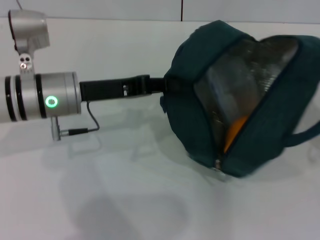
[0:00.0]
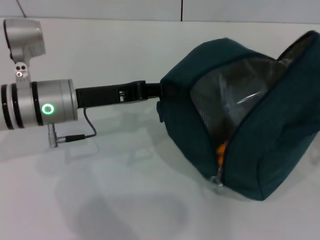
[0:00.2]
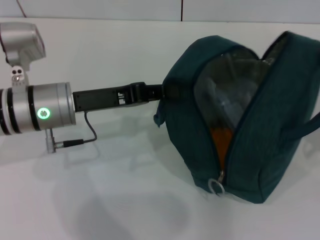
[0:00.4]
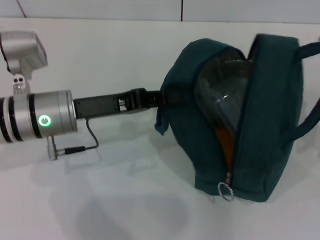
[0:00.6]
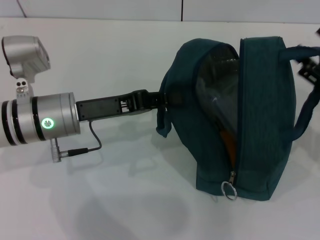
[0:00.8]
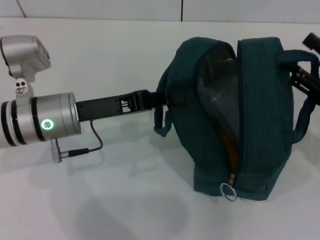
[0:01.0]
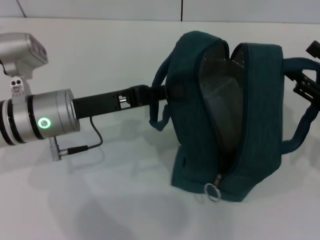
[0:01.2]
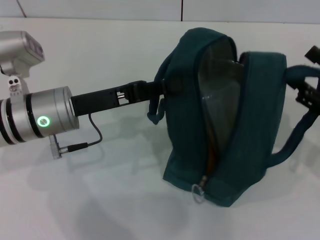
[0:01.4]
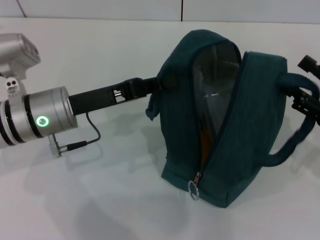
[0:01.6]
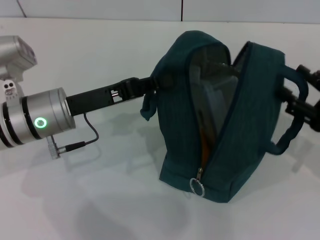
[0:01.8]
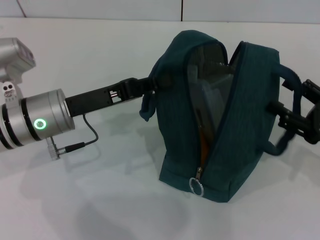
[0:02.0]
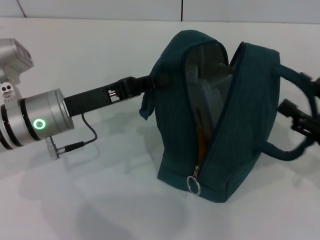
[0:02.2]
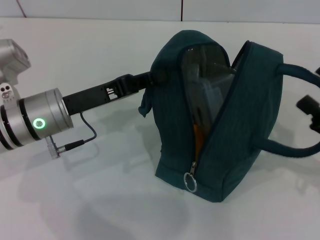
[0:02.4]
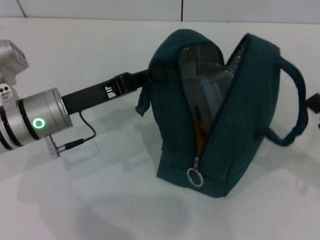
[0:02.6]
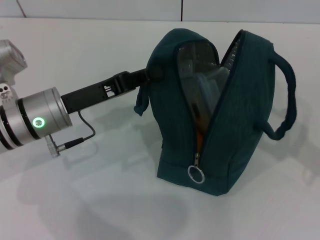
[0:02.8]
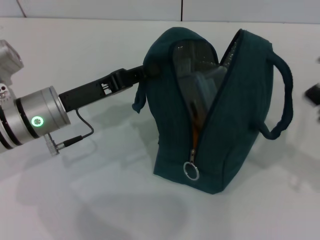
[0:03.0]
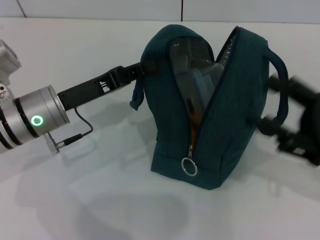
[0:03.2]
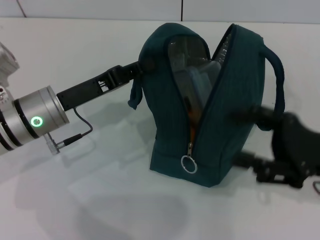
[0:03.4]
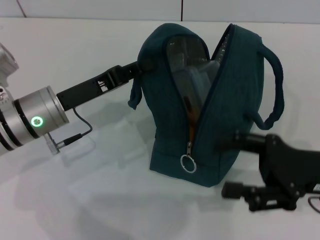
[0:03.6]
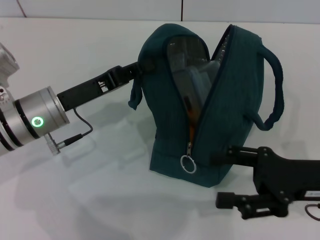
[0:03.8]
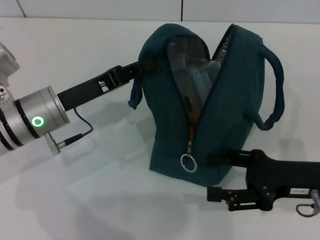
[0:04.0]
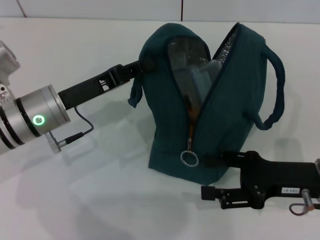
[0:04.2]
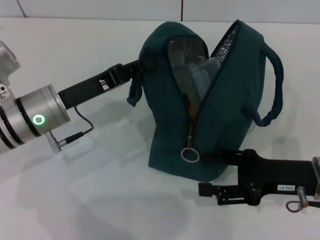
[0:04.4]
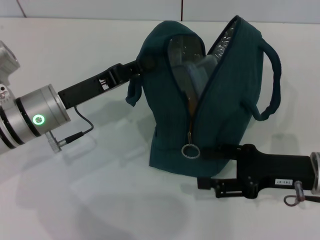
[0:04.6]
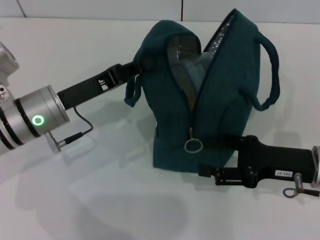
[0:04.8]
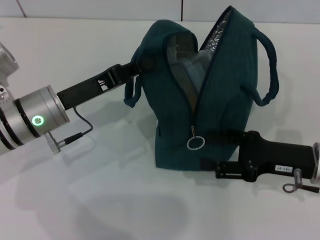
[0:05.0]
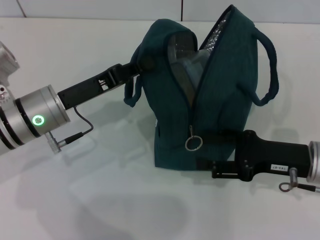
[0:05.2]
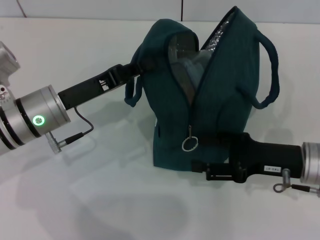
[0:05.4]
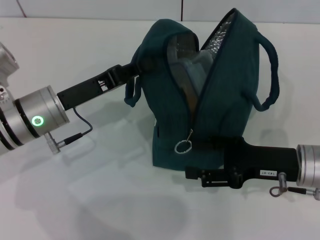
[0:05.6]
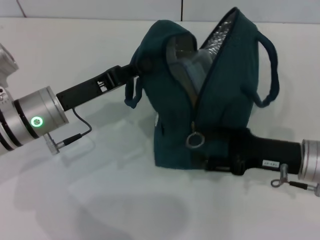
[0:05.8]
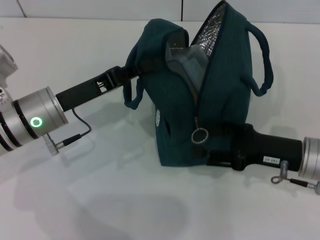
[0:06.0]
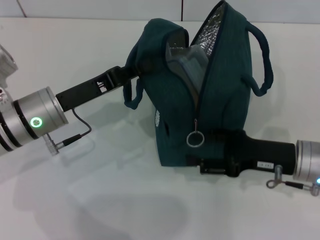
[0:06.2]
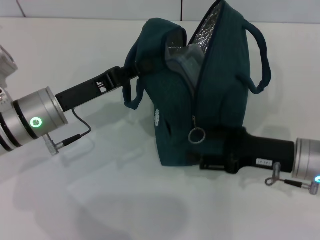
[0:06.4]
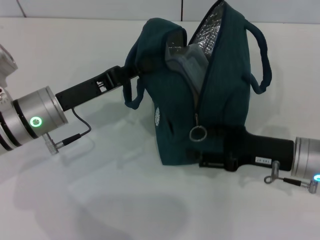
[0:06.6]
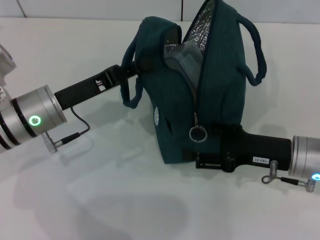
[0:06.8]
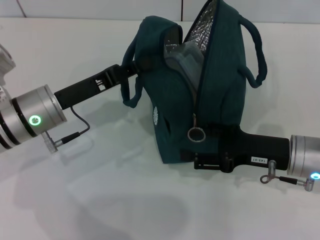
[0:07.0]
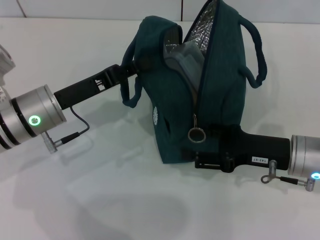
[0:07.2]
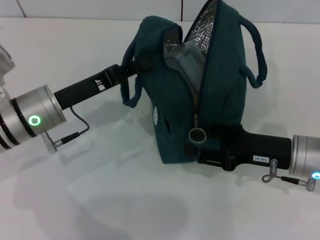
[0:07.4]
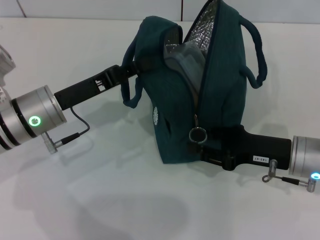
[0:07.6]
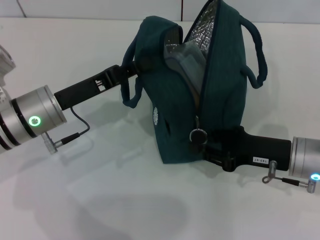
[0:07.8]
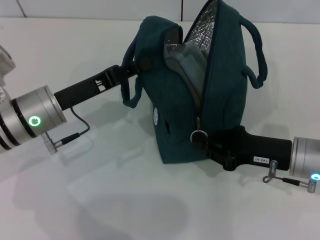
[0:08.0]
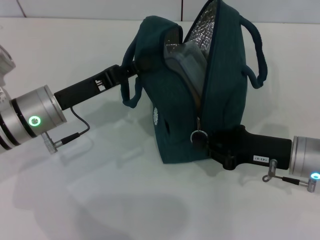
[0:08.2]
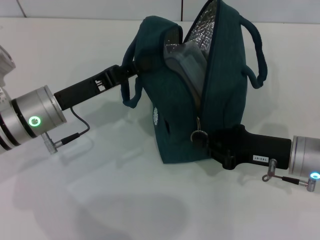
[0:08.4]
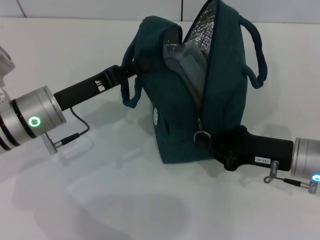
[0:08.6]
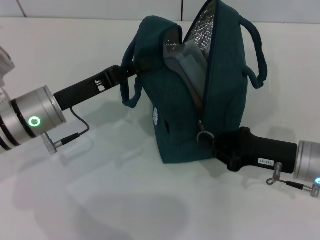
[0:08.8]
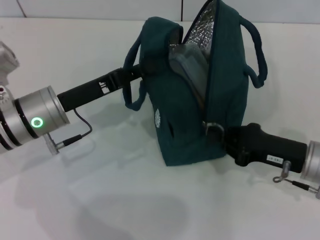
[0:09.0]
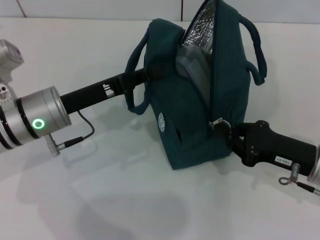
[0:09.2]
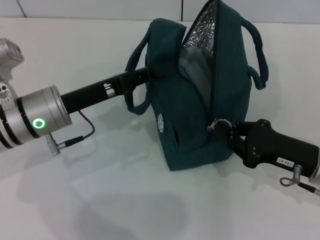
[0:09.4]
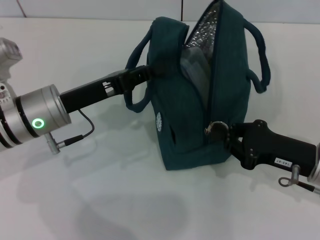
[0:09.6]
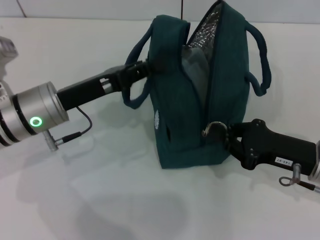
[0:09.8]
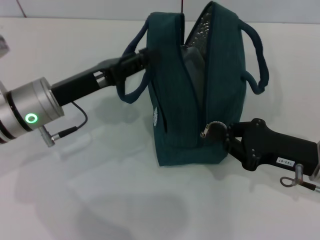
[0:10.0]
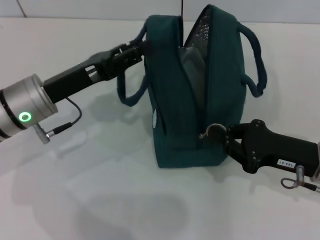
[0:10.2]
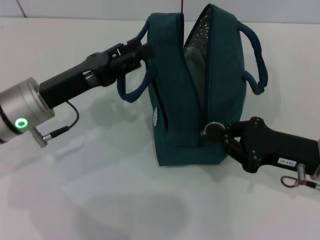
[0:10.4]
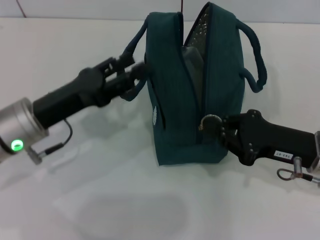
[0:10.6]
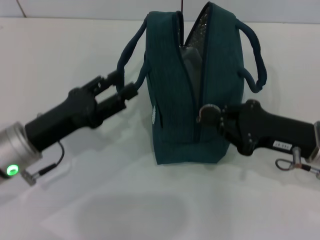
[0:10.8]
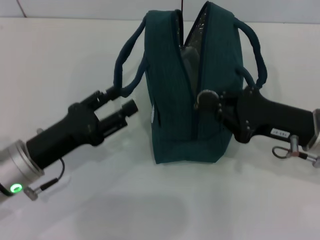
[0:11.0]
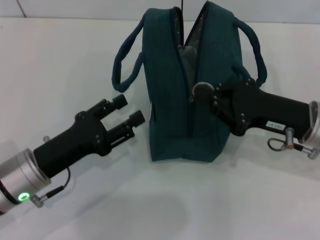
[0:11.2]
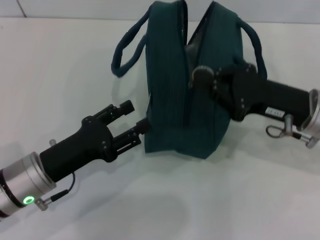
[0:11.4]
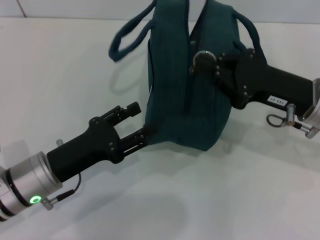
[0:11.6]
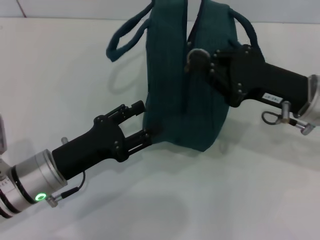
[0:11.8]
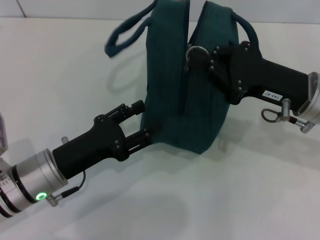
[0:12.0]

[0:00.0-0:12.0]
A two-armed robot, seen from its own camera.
Step, 0:00.0 to 0:02.4: Hold the lunch bag with your right hand.
0:03.0 to 0:04.4: The right gripper moves to the left, roughly 10 cm.
0:06.0 to 0:07.6: There are only small adjustments of the grippers.
0:07.6 to 0:09.0: The right gripper closes.
0:09.0 to 0:10.4: The left gripper opens up.
0:10.4 to 0:12.0: The left gripper moves backward and downward, some 10 cm. The right gripper travels upward by roughly 5 cm.

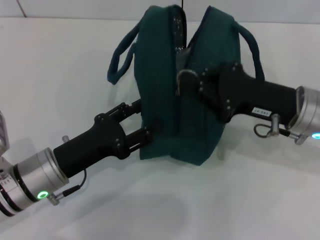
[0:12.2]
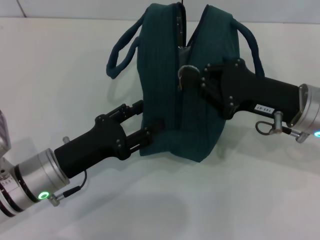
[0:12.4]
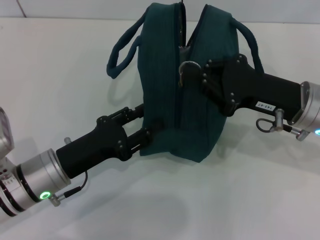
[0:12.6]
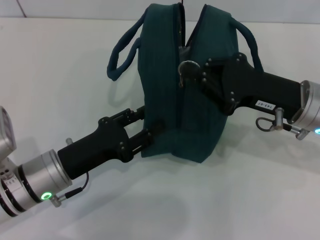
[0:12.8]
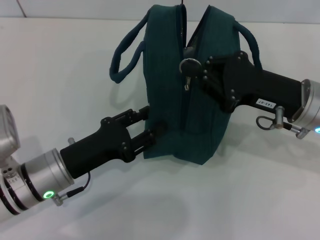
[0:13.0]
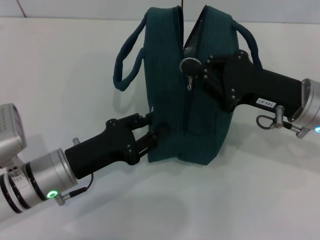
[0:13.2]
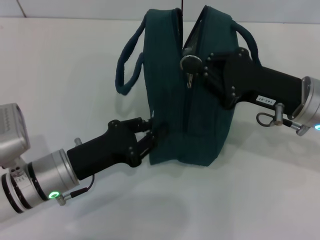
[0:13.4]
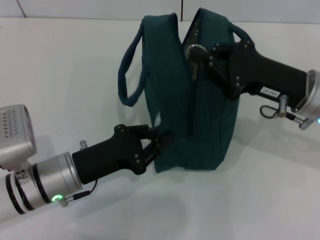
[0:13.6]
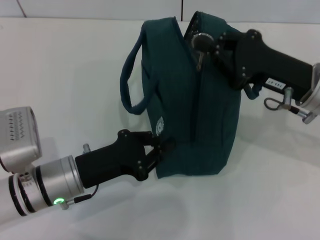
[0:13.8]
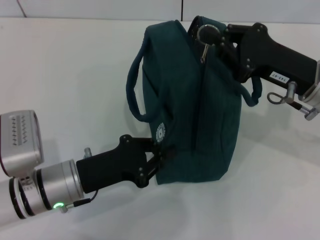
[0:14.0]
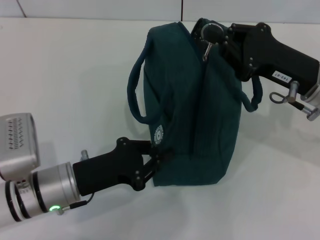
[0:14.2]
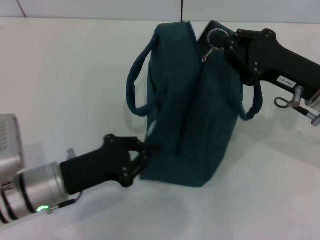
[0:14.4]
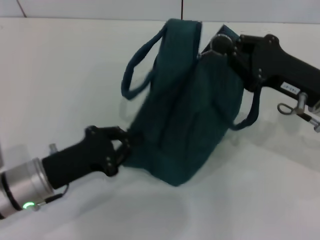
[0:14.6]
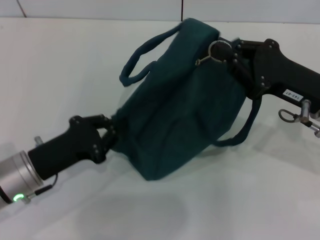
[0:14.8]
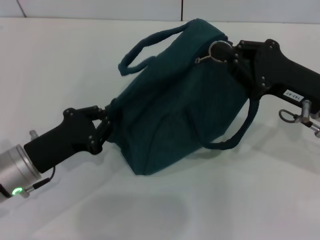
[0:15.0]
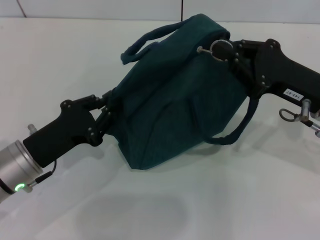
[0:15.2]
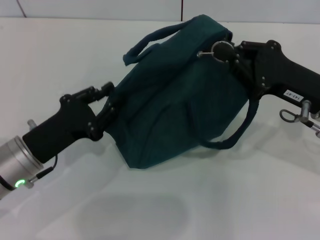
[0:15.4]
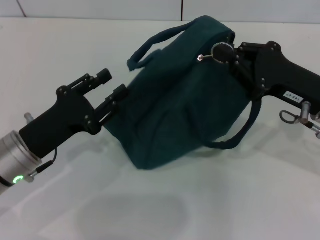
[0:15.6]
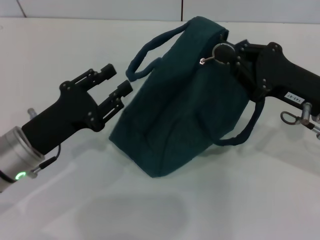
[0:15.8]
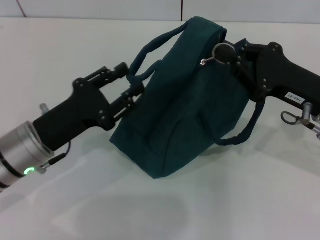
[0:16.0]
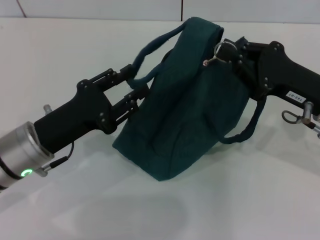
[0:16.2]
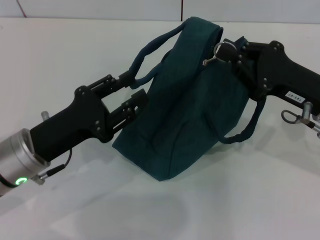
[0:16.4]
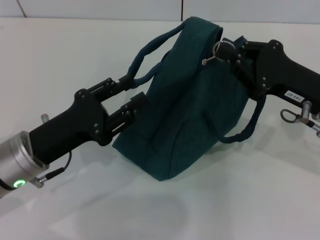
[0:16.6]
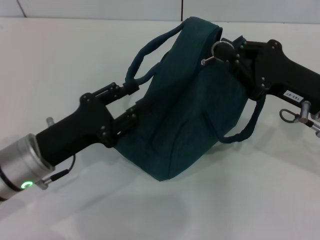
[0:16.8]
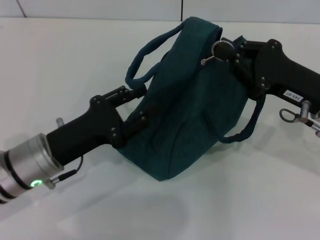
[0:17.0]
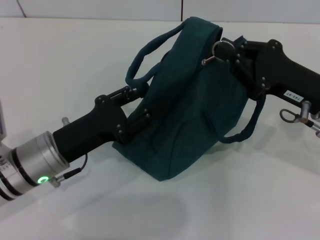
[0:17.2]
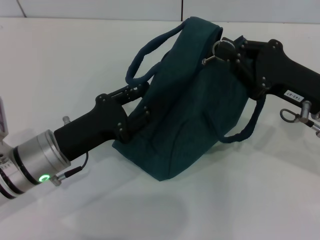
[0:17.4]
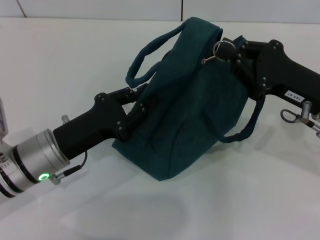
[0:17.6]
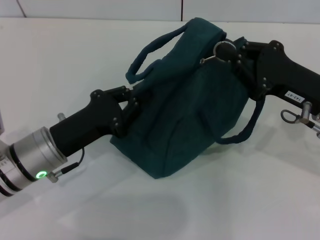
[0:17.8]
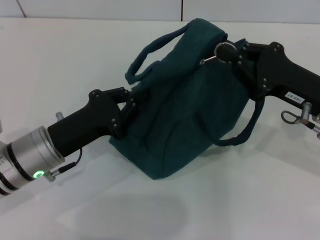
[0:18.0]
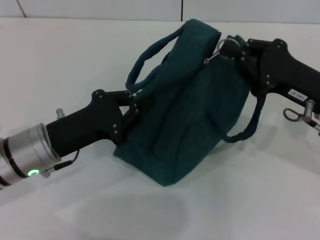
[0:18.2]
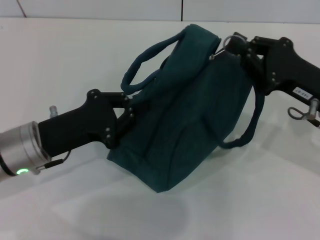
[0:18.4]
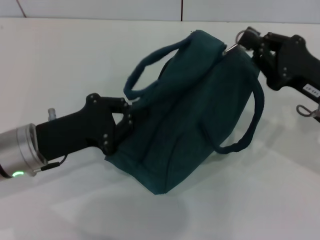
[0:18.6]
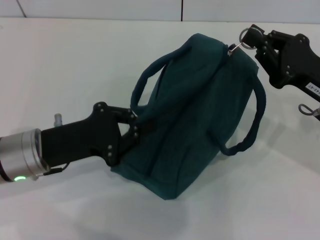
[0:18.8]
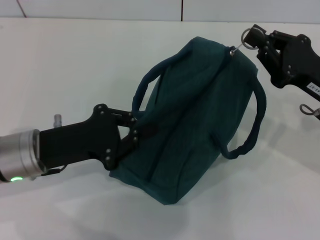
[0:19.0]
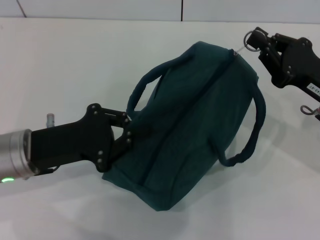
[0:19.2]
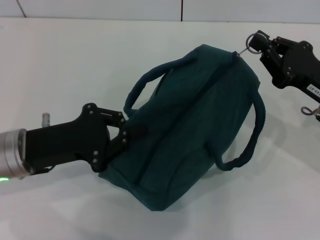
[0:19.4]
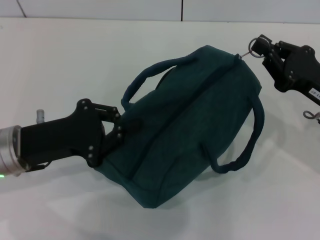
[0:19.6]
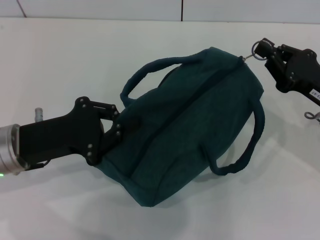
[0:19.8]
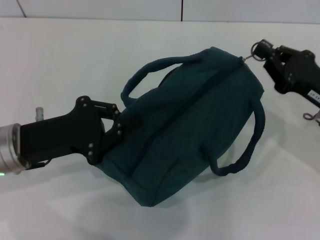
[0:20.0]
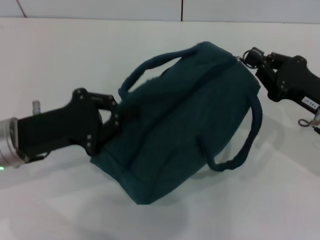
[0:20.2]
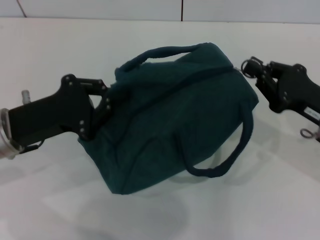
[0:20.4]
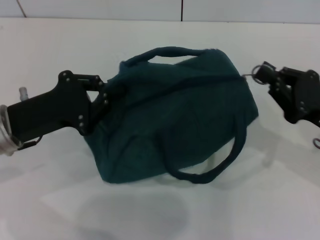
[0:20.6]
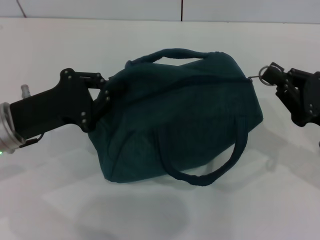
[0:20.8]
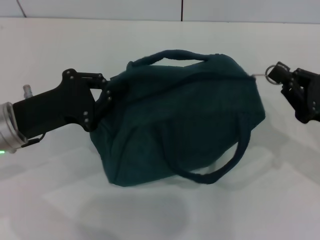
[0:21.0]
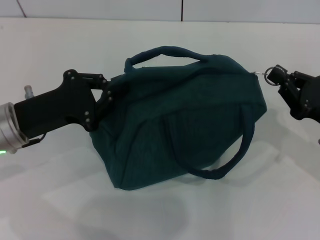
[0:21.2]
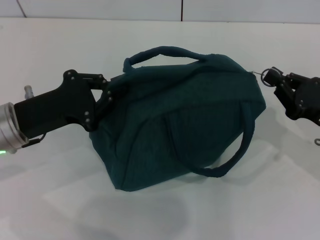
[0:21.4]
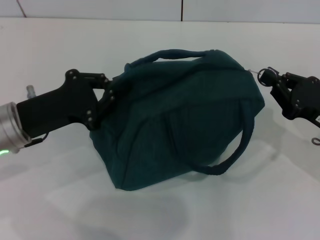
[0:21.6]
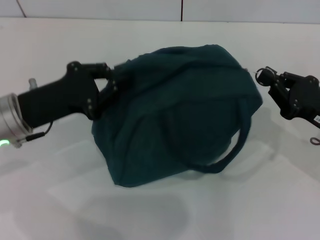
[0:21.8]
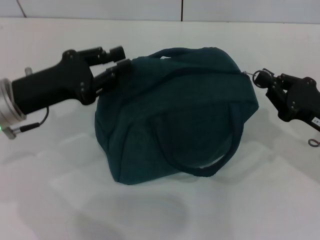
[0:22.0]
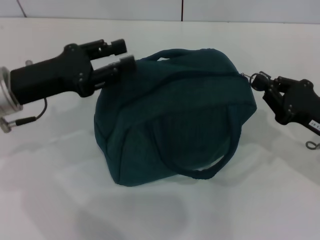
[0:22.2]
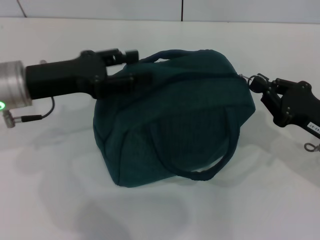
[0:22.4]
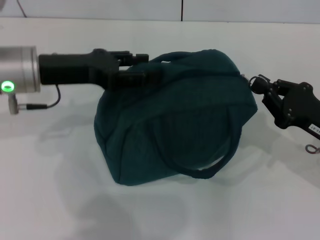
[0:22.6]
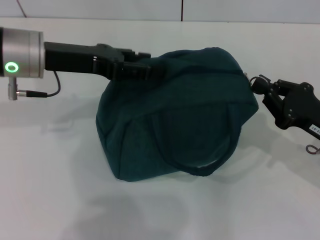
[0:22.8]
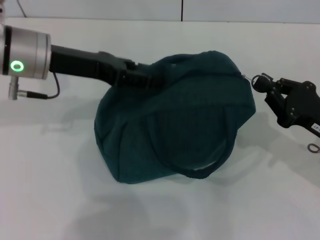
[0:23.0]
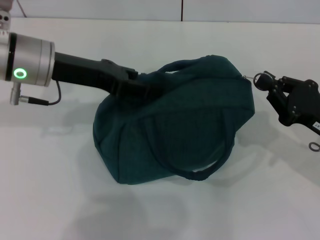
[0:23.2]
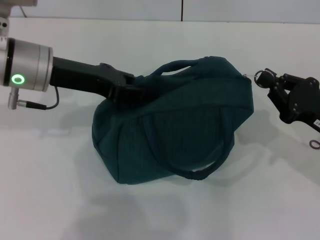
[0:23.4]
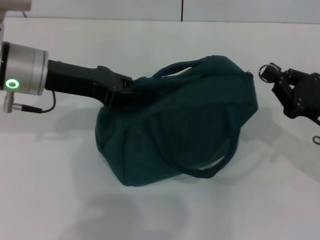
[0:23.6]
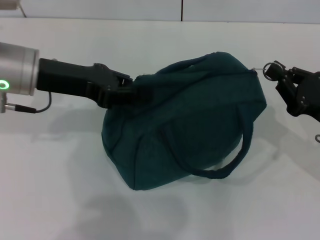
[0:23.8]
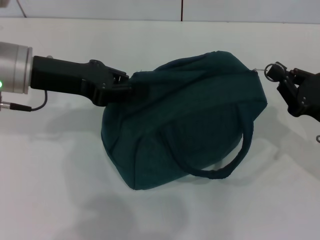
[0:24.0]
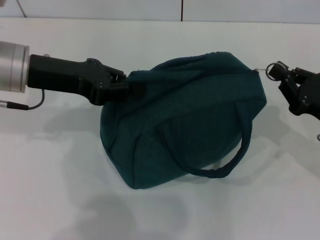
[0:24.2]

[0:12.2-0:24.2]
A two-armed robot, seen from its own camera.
0:12.2 to 0:13.8: The left gripper closes.
0:13.8 to 0:15.2: The left gripper goes about 5 cm to the left.
0:15.2 to 0:16.6: The left gripper opens.
0:16.6 to 0:18.2: The left gripper closes up.
0:21.2 to 0:22.6: The left gripper heads upward and forward, covering roughly 10 cm, and opens its fingers.
0:22.6 to 0:24.2: The left gripper closes its fingers.
